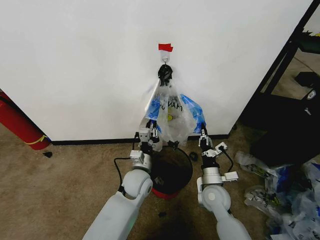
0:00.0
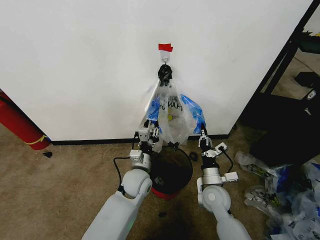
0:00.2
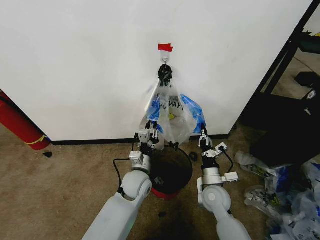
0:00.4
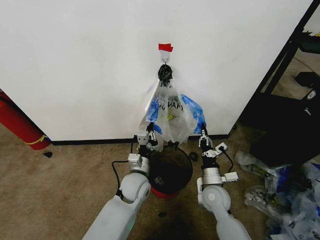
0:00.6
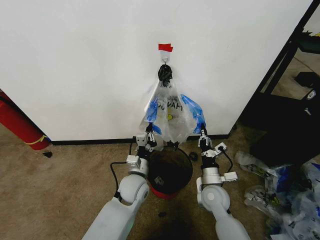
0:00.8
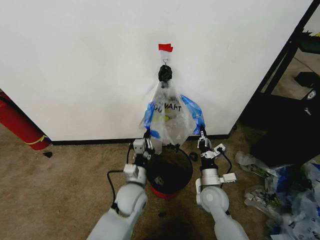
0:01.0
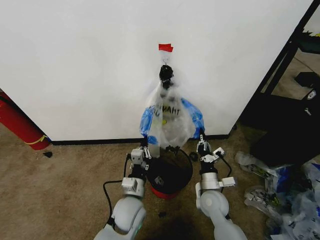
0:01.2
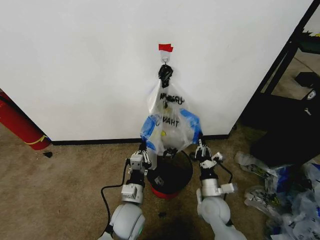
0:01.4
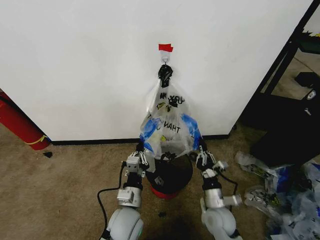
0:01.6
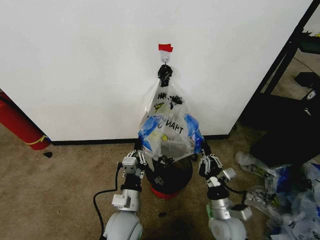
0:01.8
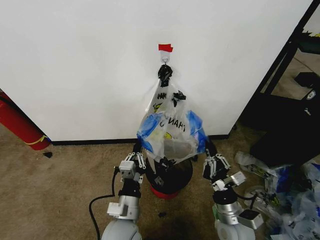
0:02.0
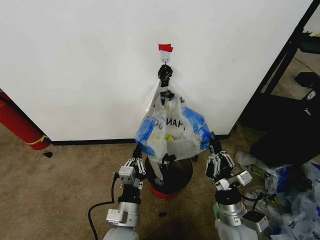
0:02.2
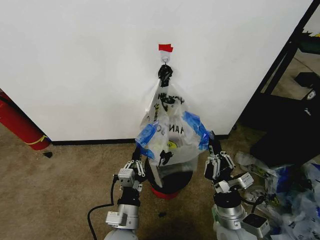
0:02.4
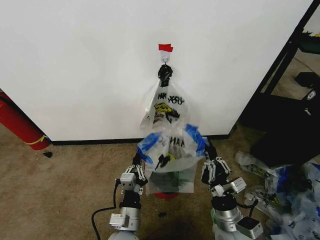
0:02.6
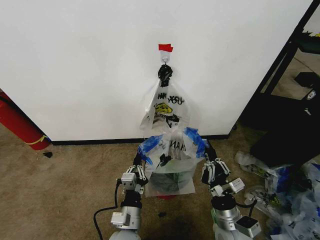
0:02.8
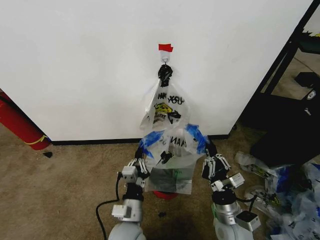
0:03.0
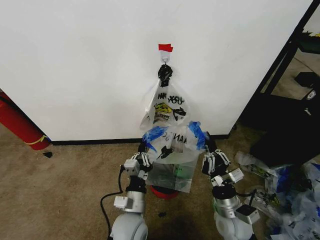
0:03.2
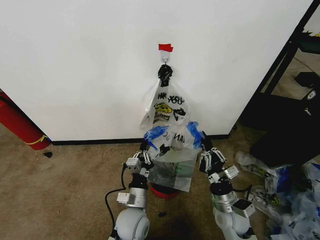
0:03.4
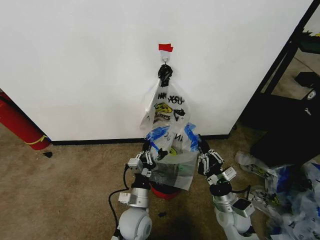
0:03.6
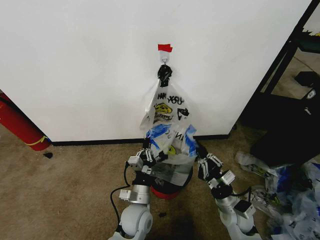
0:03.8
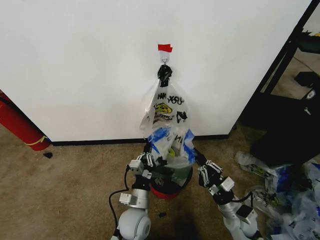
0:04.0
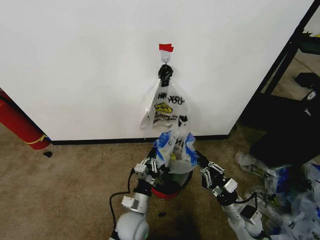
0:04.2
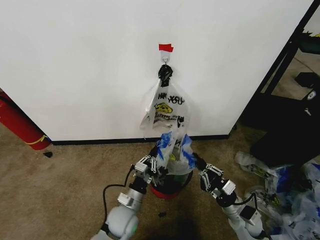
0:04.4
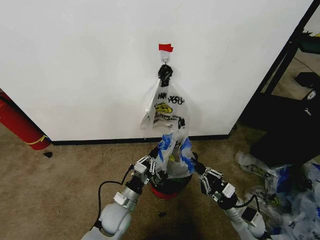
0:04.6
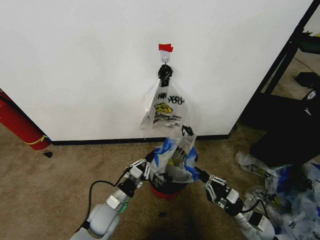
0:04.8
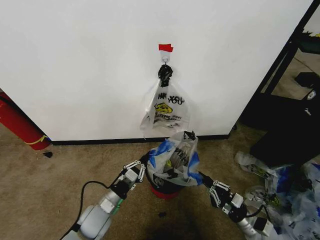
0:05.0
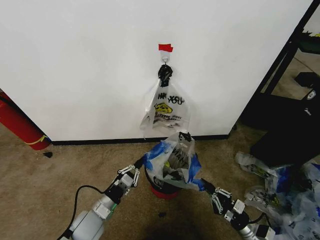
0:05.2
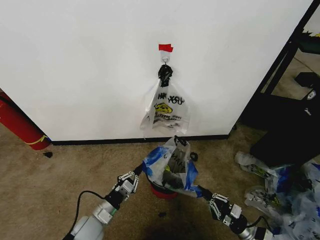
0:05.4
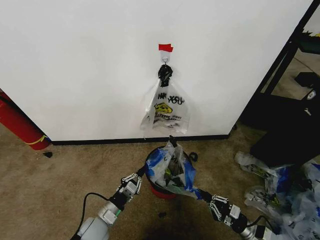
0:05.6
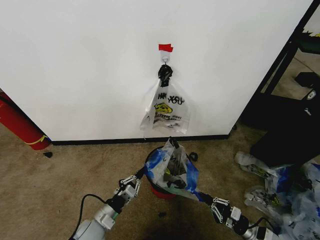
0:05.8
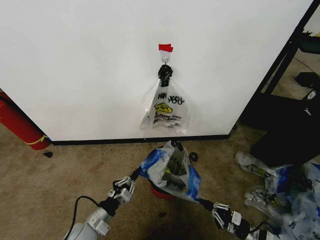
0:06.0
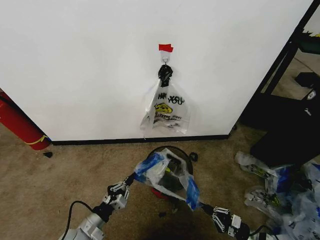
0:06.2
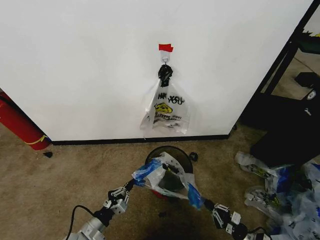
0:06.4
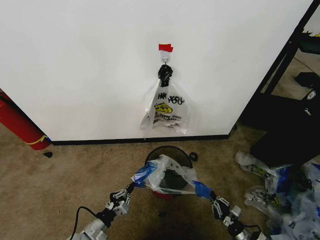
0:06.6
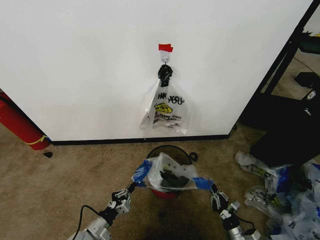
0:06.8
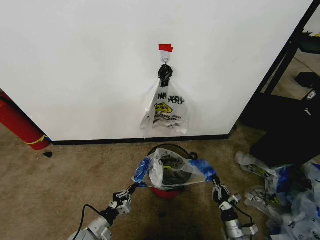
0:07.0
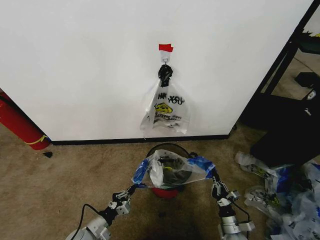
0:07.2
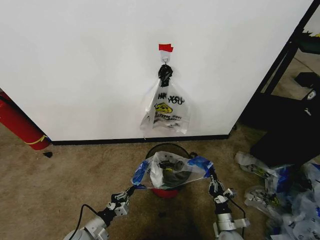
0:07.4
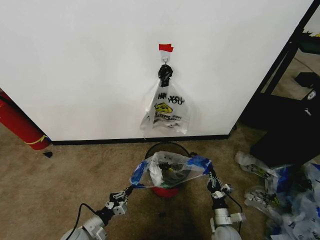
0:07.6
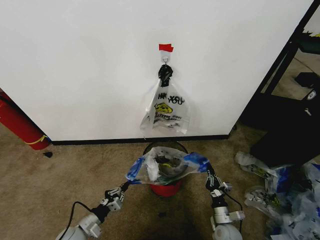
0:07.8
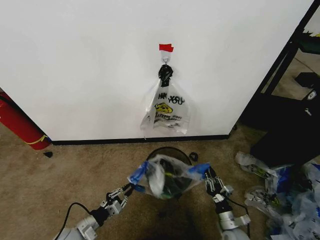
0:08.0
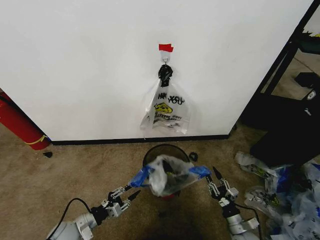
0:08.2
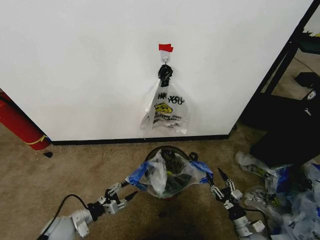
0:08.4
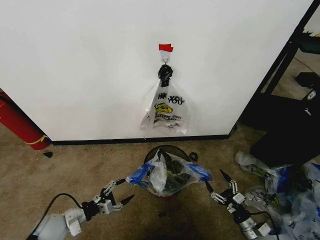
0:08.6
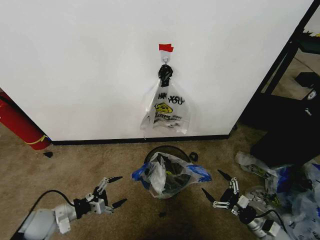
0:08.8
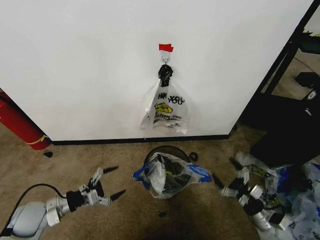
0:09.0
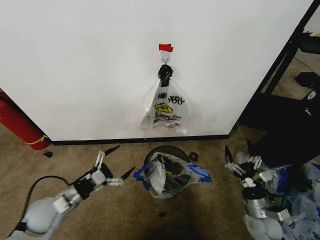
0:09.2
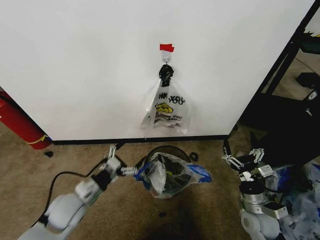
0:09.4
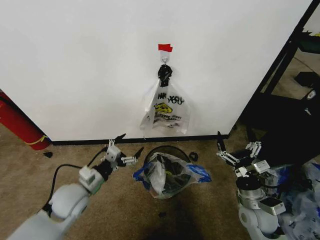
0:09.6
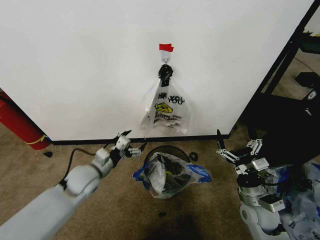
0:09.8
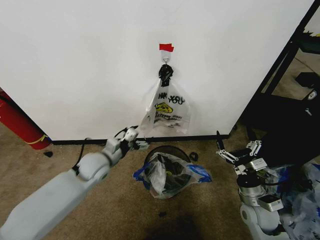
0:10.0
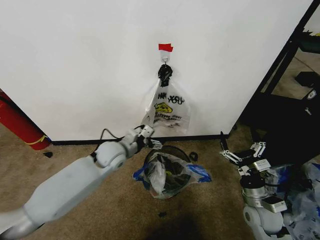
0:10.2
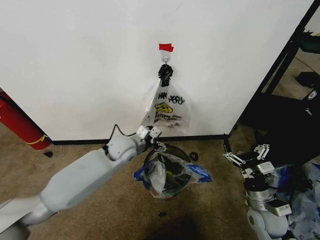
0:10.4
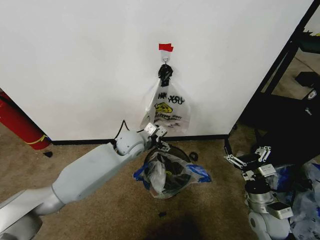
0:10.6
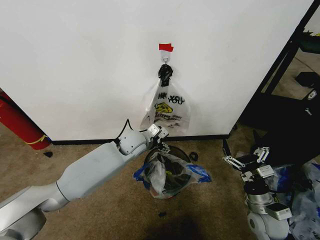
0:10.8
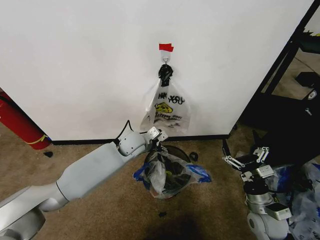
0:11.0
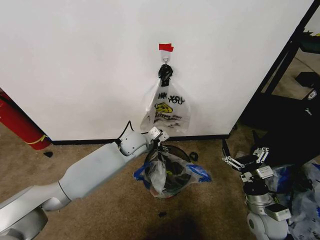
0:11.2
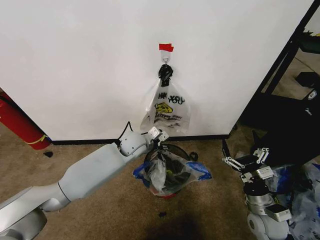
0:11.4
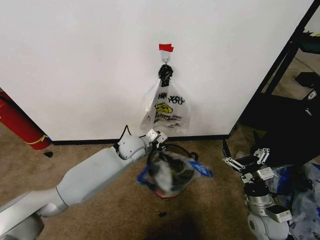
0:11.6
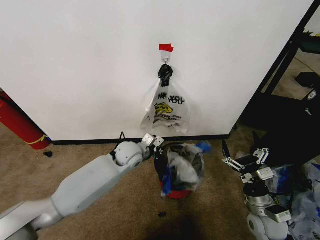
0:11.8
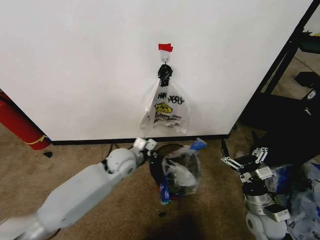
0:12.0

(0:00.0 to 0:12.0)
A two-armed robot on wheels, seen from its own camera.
Task of the whole recording: Pick up the garbage bag from the wall and place it over the trash bin.
0:00.0 - 0:01.6: The left gripper travels backward by roughly 10 cm. The right gripper is displaced backward by approximately 5 cm.
0:03.0 - 0:04.4: The right gripper shifts some 5 cm to the right. Meanwhile the left gripper heads forward and downward, covering some 10 cm.
0:04.4 - 0:06.0: The left gripper goes about 15 cm to the left. Meanwhile the right gripper moves downward, to the right and backward, approximately 15 cm.
0:06.0 - 0:07.6: The left gripper goes about 10 cm downward and to the left, while the right gripper travels to the left by about 15 cm.
0:07.6 - 0:09.0: The right gripper heads to the right and upward, covering roughly 15 cm, and opens. Meanwhile the left gripper shifts about 15 cm upward and to the left, and opens up.
0:09.0 - 0:10.4: The right gripper heads upward and to the left, covering approximately 15 cm. Meanwhile the left gripper moves to the right, forward and upward, roughly 35 cm.
0:10.4 - 0:12.0: The left gripper closes.

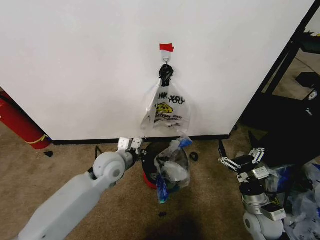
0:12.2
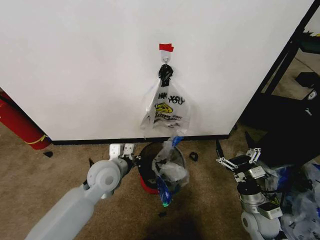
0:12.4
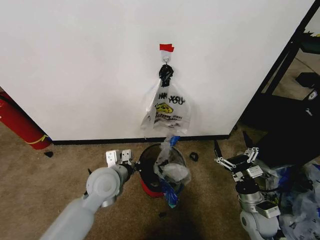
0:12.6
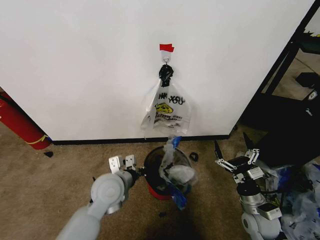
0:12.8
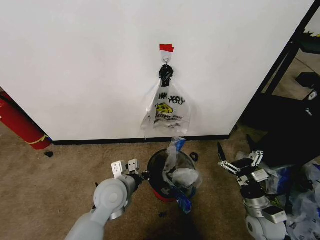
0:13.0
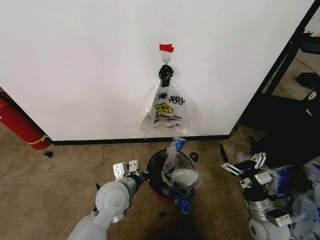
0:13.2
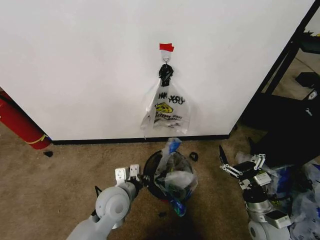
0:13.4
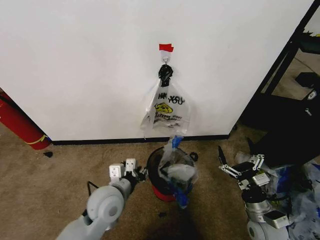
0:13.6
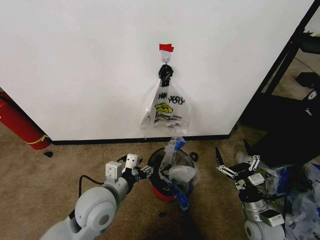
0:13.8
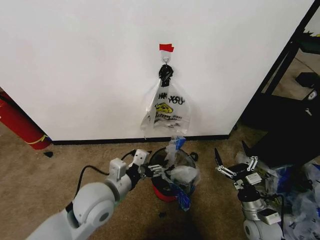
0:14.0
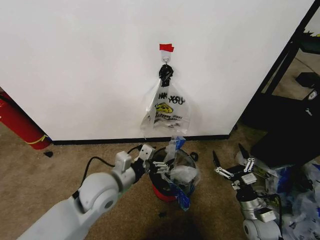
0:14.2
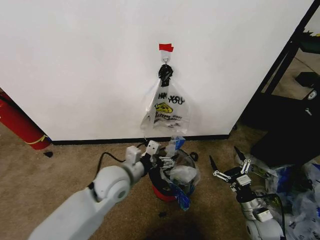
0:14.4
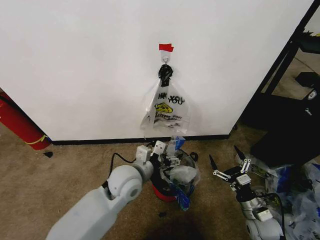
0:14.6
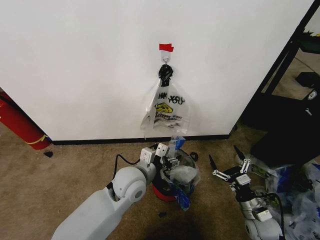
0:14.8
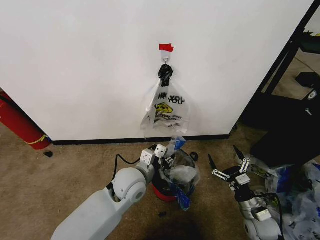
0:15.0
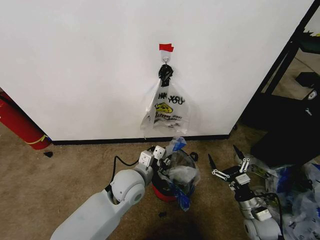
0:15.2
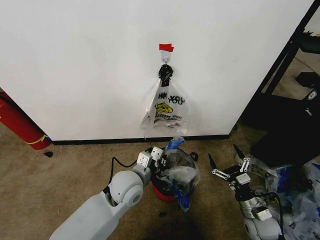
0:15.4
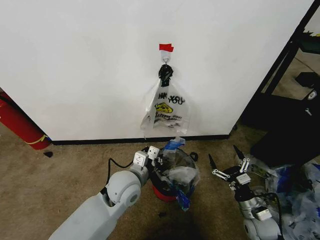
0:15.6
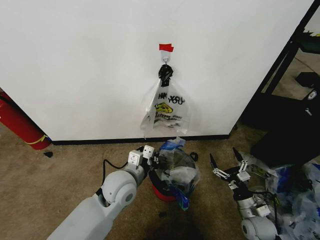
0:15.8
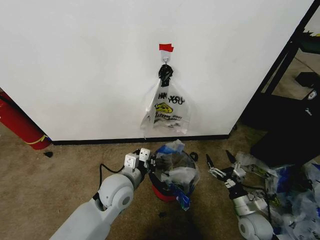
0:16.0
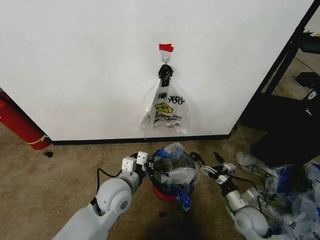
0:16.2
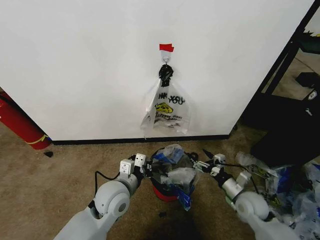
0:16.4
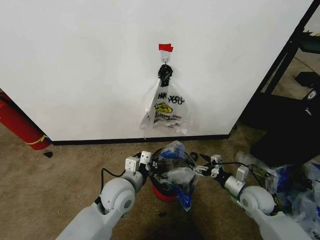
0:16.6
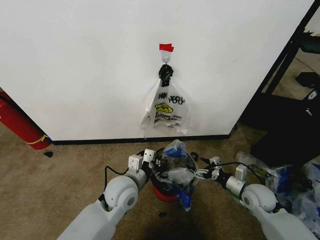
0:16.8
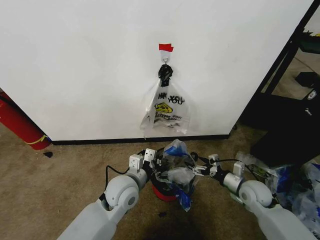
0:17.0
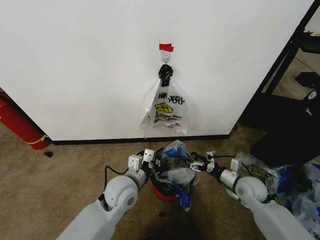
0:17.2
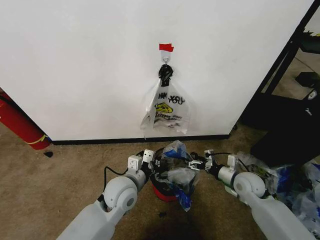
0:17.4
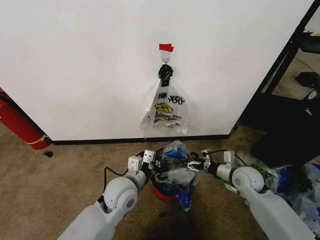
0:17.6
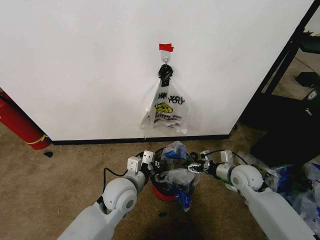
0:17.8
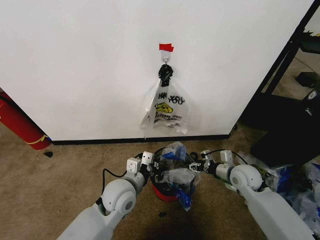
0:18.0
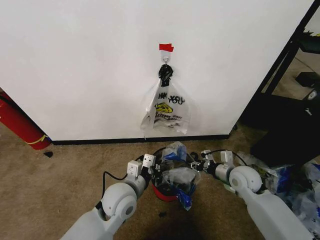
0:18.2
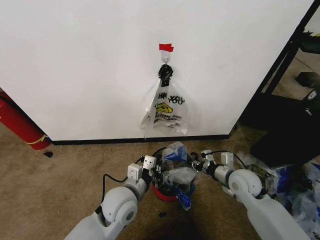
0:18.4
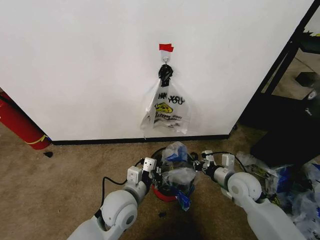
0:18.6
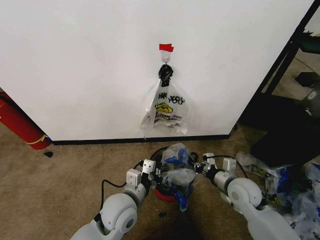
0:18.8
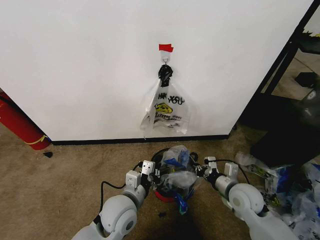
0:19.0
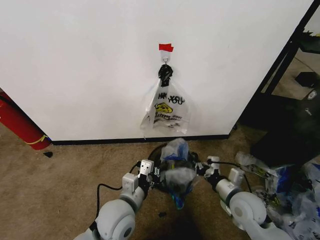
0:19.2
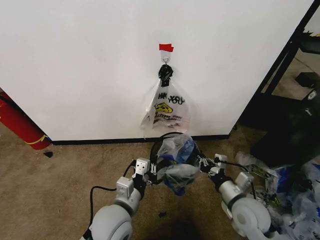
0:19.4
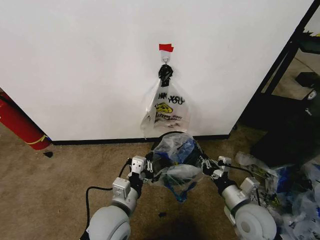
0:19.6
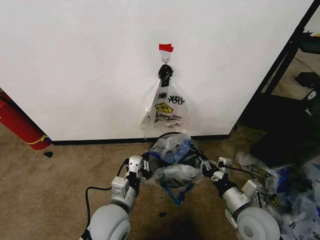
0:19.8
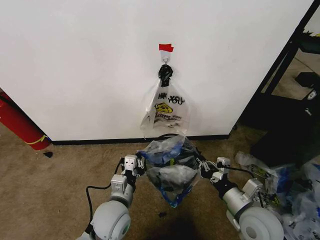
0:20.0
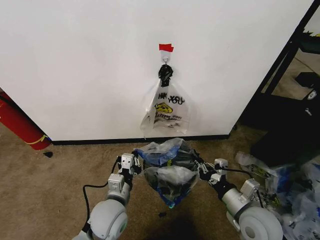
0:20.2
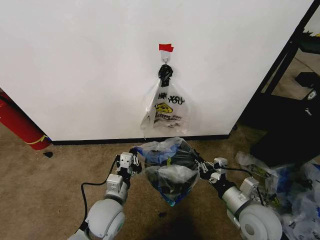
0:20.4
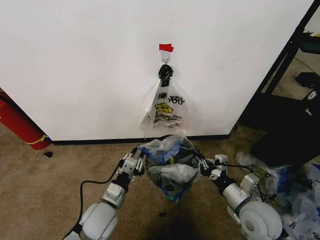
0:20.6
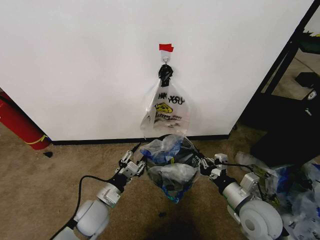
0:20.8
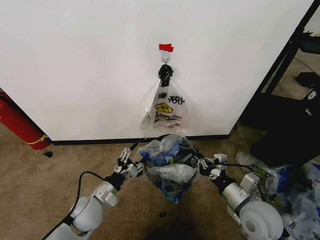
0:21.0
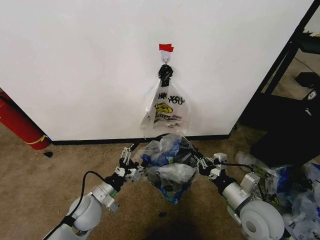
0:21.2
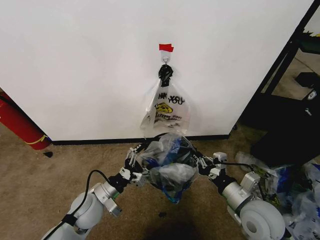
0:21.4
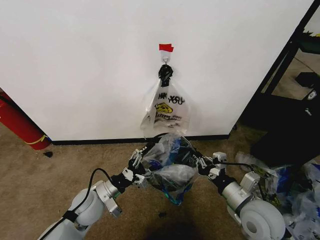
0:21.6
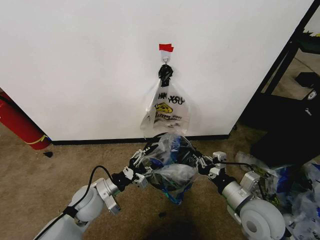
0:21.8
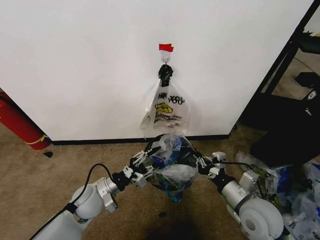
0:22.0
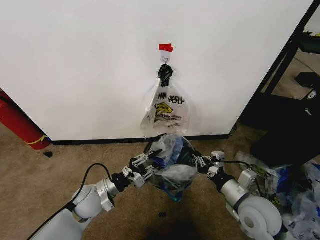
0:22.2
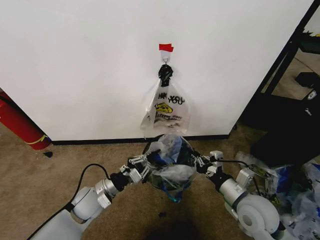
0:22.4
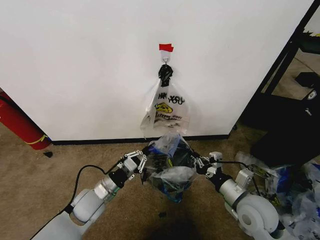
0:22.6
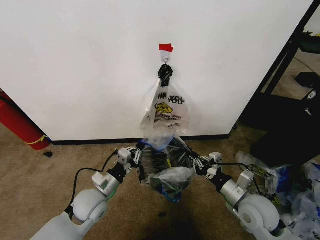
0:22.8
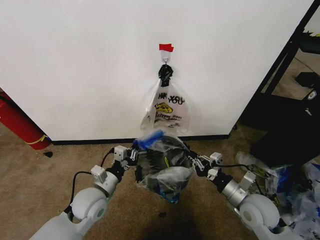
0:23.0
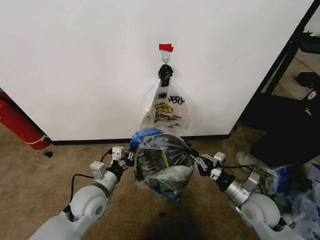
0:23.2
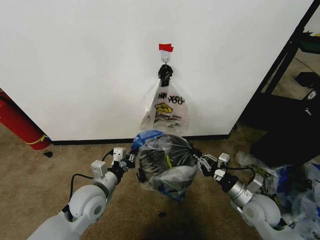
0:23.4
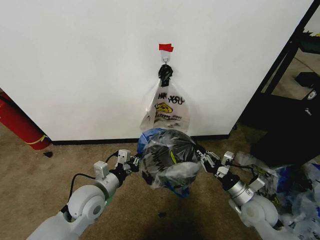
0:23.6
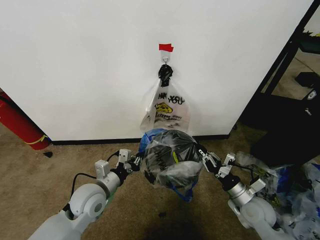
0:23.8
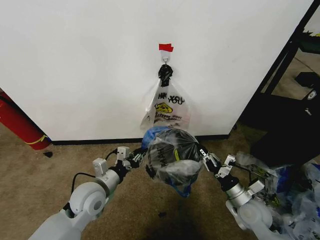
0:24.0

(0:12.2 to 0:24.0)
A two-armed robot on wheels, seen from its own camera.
Task of the whole recording: Pick up the garbage bag from the wall and place it over the trash bin.
0:12.2 - 0:13.6: The left gripper shifts about 10 cm backward, and opens up.
0:13.6 - 0:15.2: The right gripper moves downward, some 5 cm. The left gripper travels to the right and forward by roughly 10 cm, and opens, then closes again.
0:15.2 - 0:16.6: The right gripper moves forward and upward, roughly 10 cm.
0:16.6 - 0:18.2: The right gripper shifts about 5 cm forward, and closes its fingers.
0:18.2 - 0:19.6: The left gripper moves backward, roughly 5 cm. Meanwhile the right gripper shifts about 15 cm backward, and closes up.
0:19.6 - 0:21.0: The left gripper moves to the left, downward and forward, approximately 15 cm, and opens its fingers.
0:21.0 - 0:22.6: The left gripper closes.
0:22.6 - 0:24.0: The left gripper heads upward, covering roughly 5 cm. Meanwhile the right gripper shifts about 10 cm downward.
